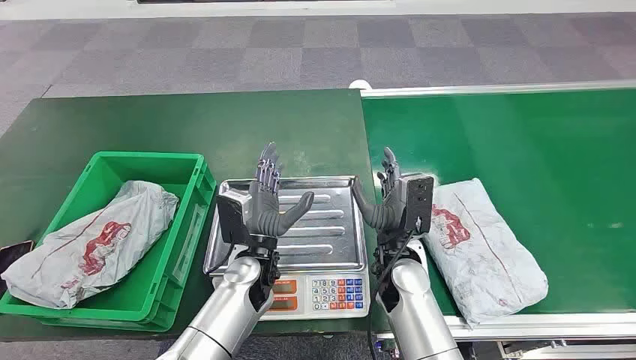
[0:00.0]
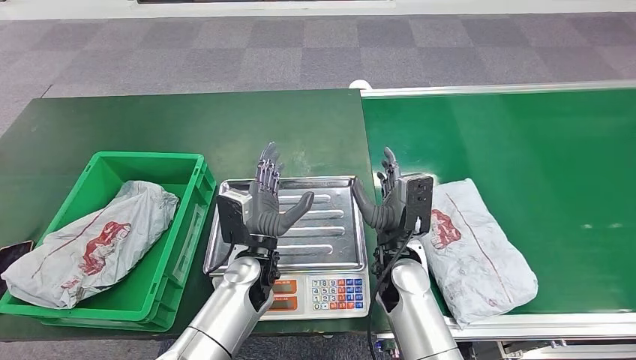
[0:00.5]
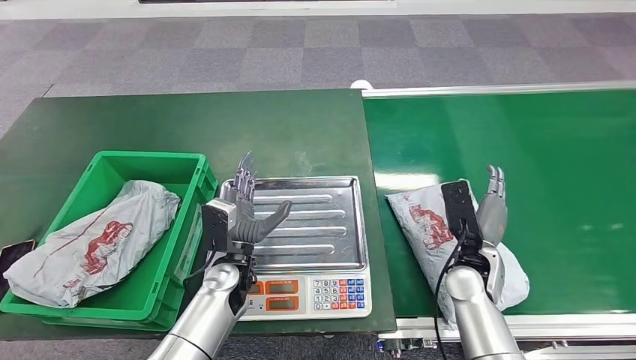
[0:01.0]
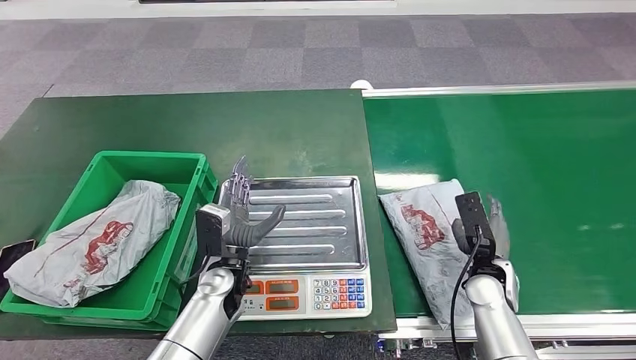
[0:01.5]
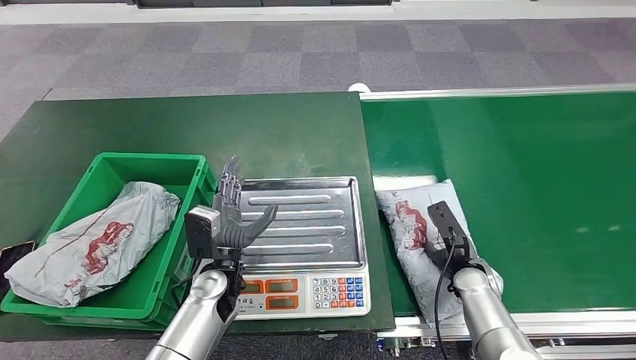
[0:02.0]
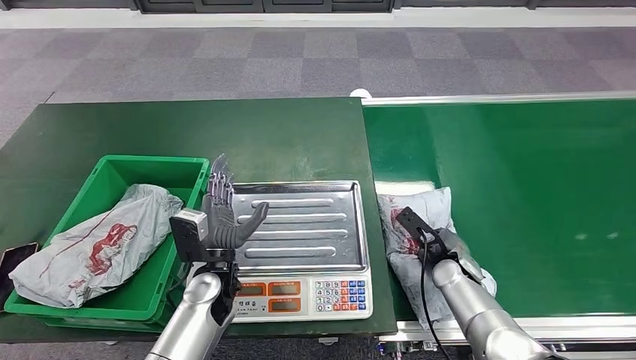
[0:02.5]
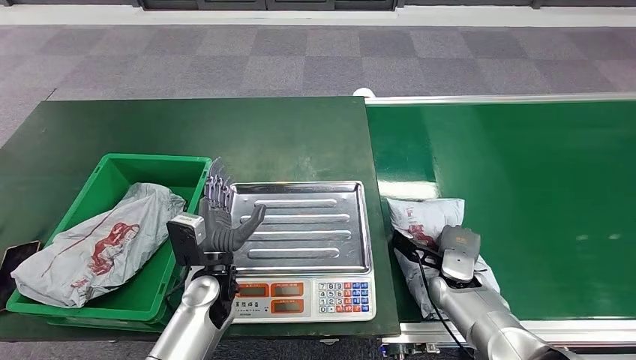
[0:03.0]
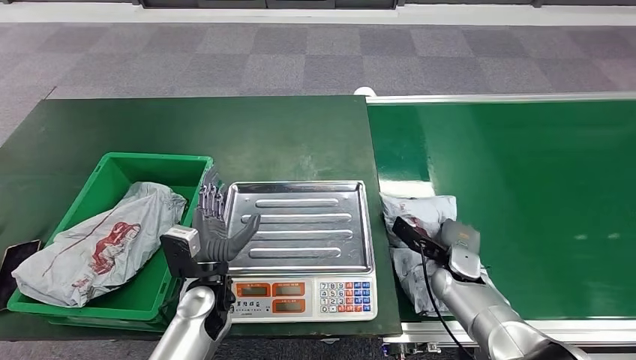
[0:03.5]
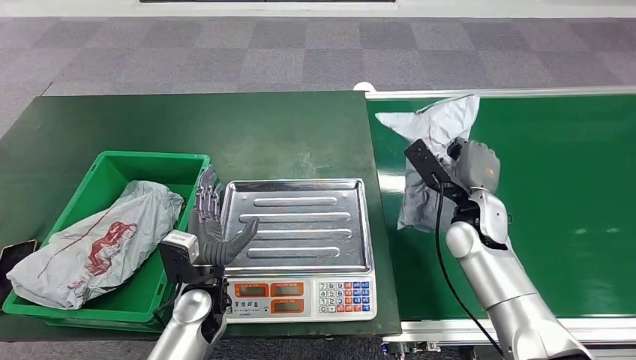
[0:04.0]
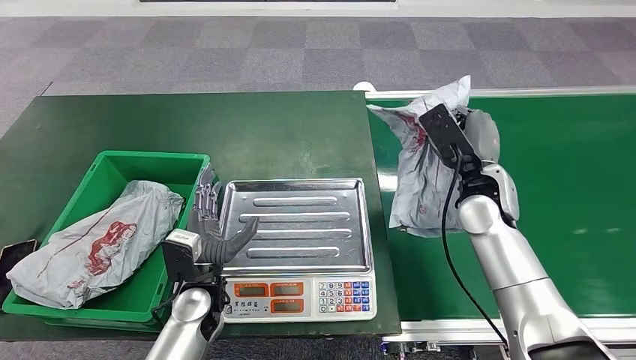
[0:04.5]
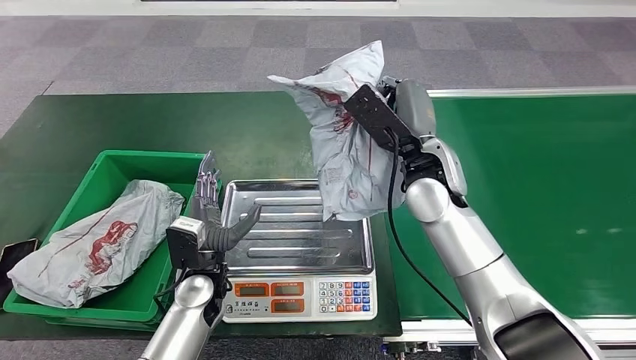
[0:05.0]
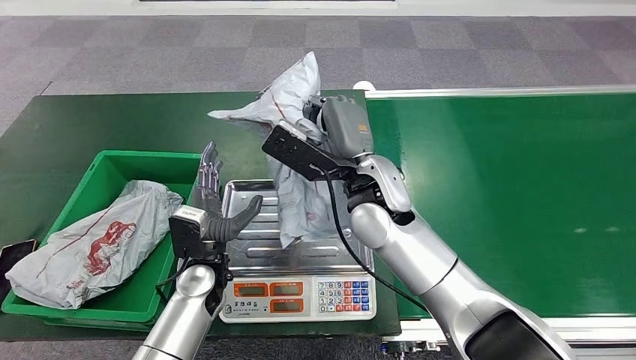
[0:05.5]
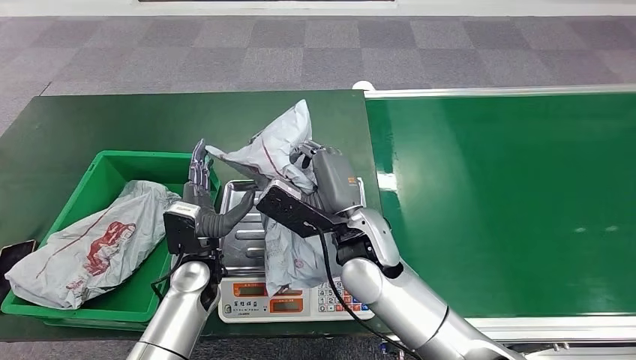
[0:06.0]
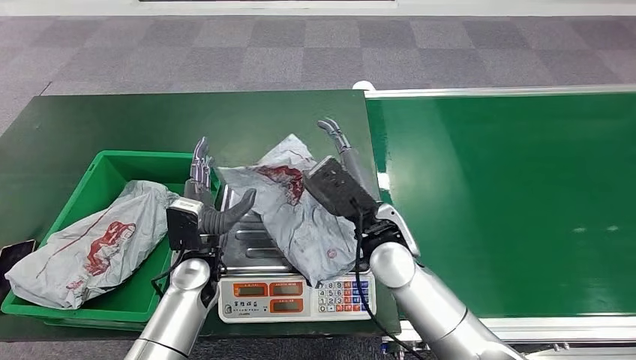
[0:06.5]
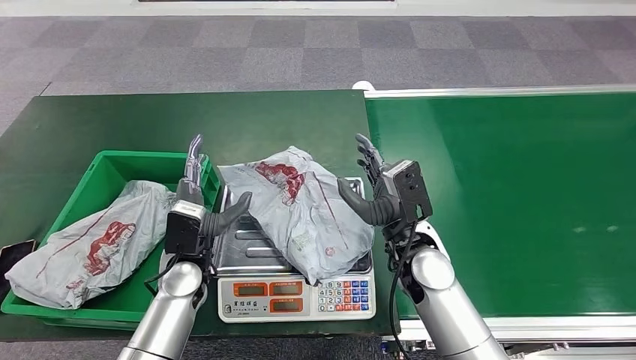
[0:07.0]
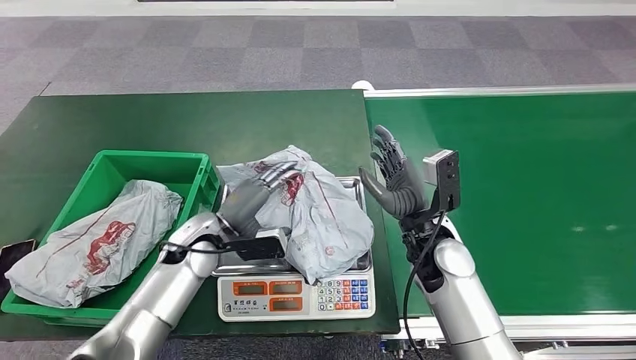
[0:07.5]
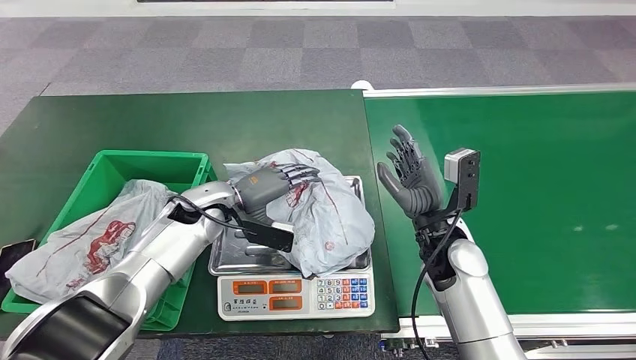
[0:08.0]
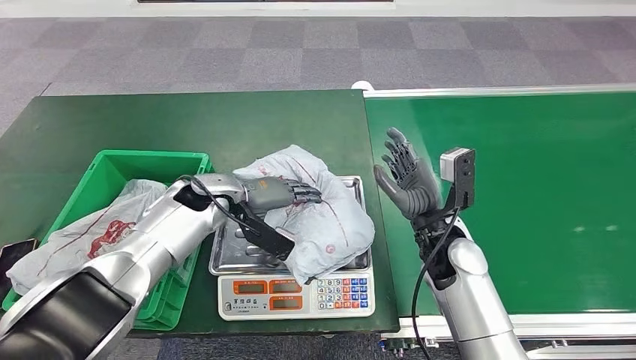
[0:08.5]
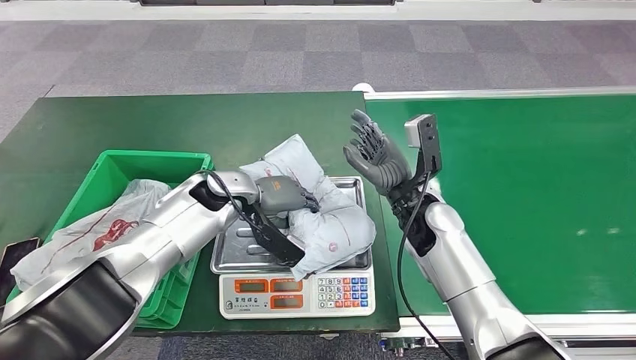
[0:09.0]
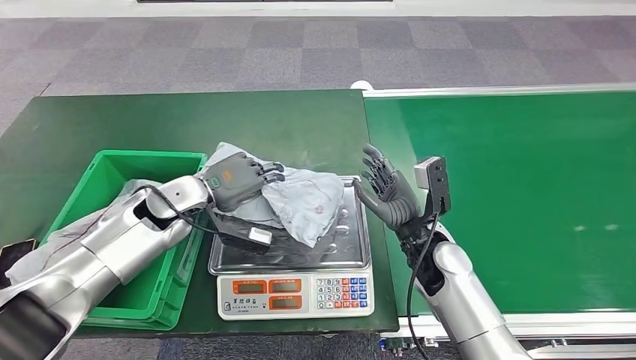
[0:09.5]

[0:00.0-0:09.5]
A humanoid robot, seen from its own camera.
Step, 0:00.0 to 0:04.0: Pick up the package from the conveyor belt.
Step, 0:04.5 to 0:06.5: Place the package onto the inbound machine.
Step, 0:07.0 to 0:09.5: Pick up the package from the inbound machine.
